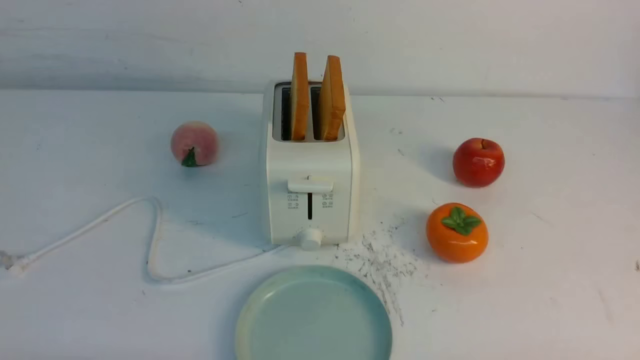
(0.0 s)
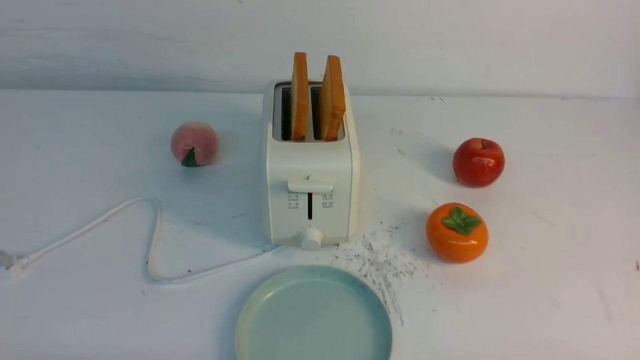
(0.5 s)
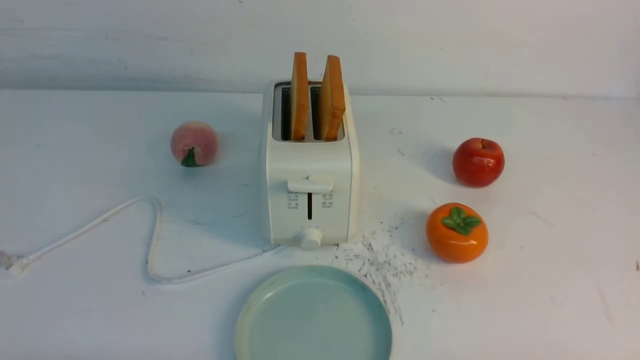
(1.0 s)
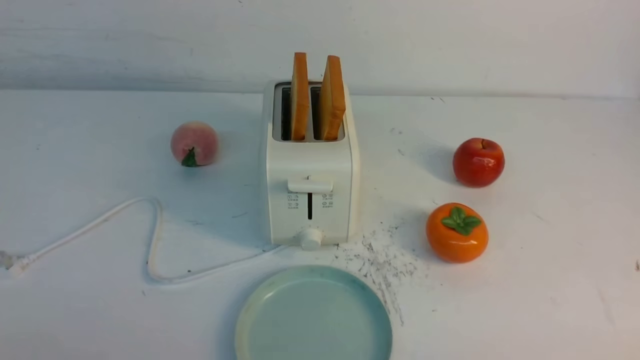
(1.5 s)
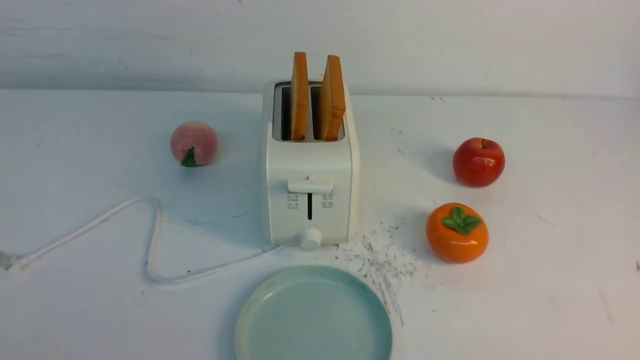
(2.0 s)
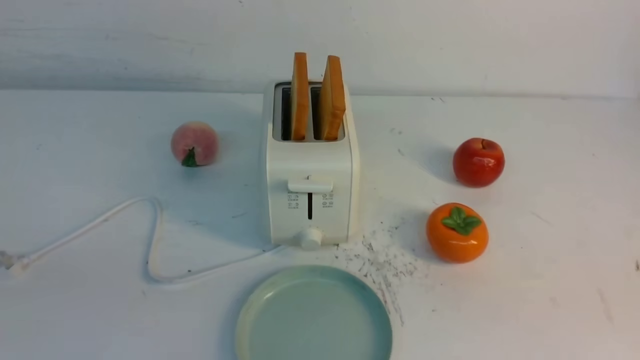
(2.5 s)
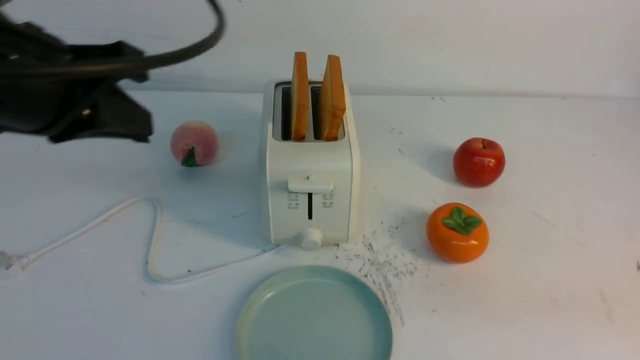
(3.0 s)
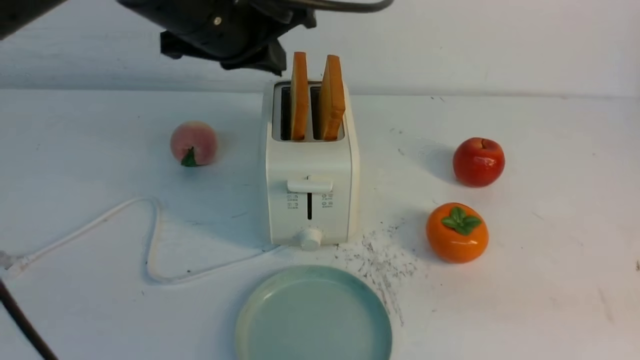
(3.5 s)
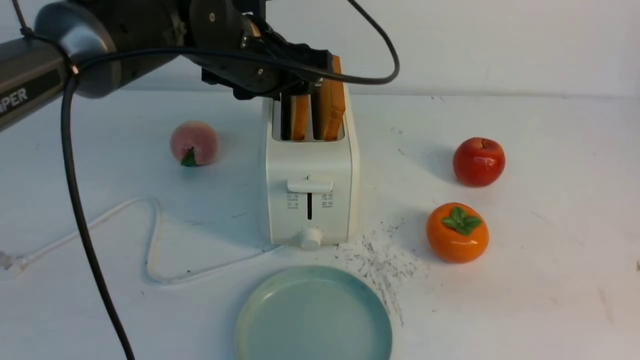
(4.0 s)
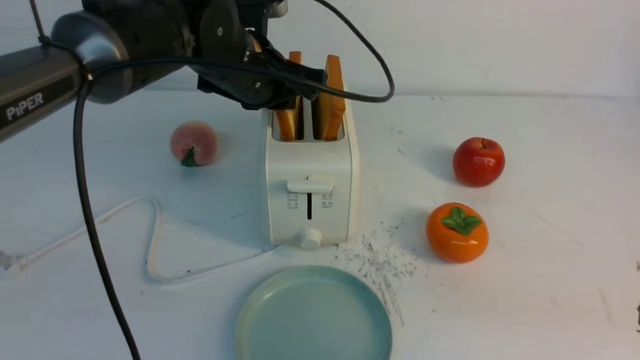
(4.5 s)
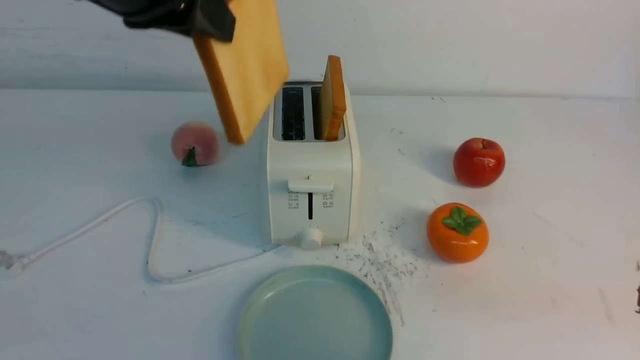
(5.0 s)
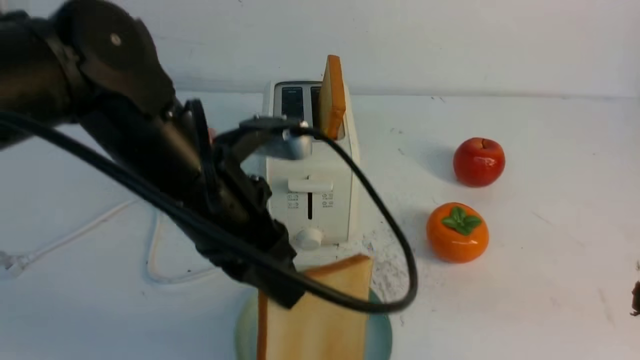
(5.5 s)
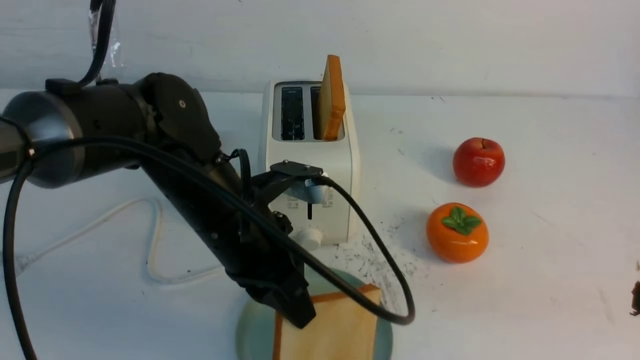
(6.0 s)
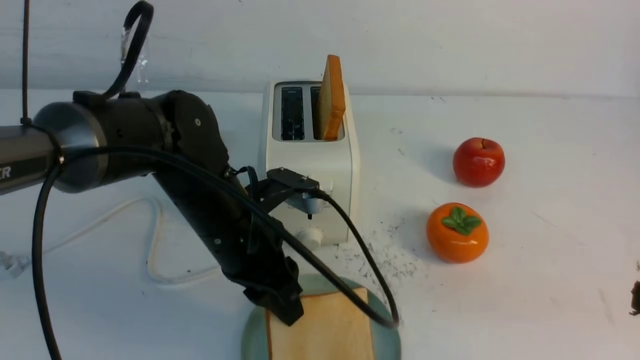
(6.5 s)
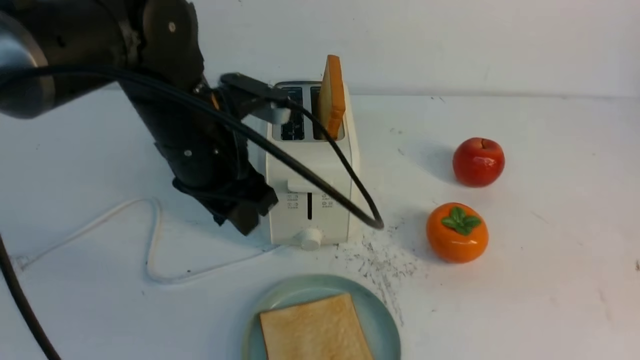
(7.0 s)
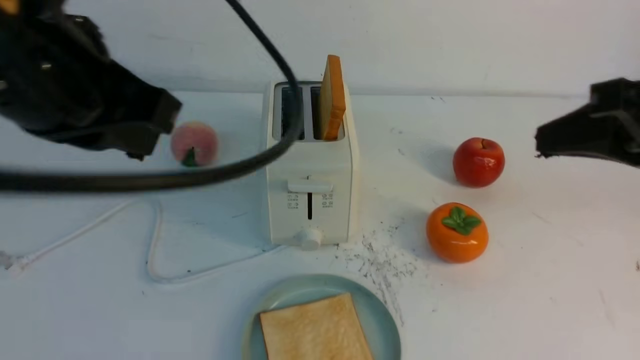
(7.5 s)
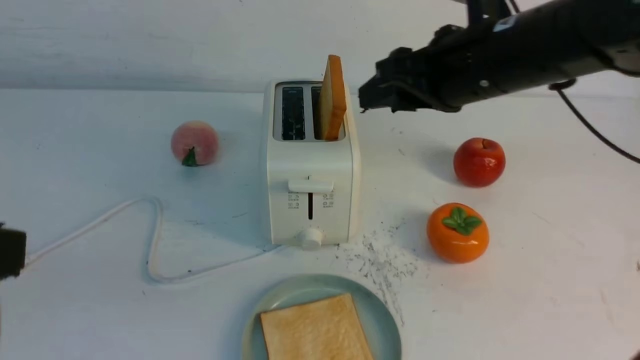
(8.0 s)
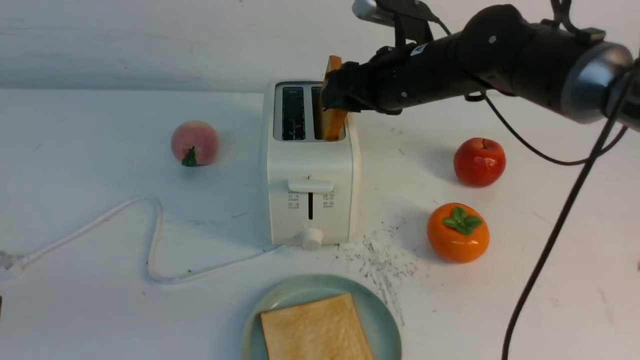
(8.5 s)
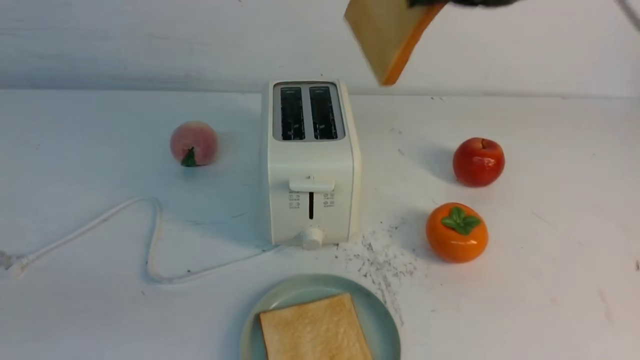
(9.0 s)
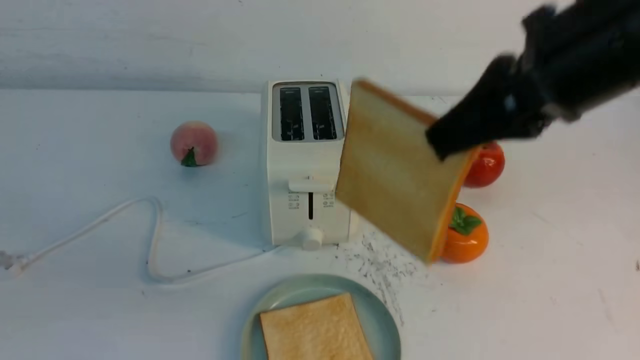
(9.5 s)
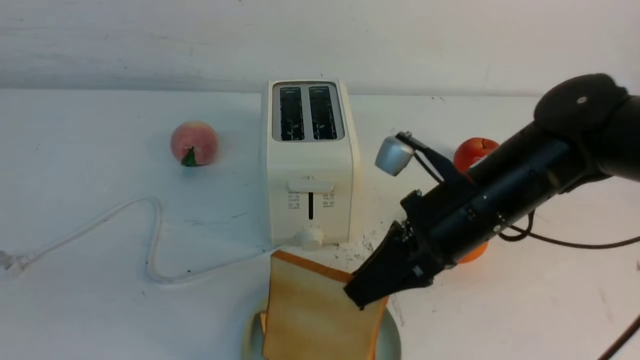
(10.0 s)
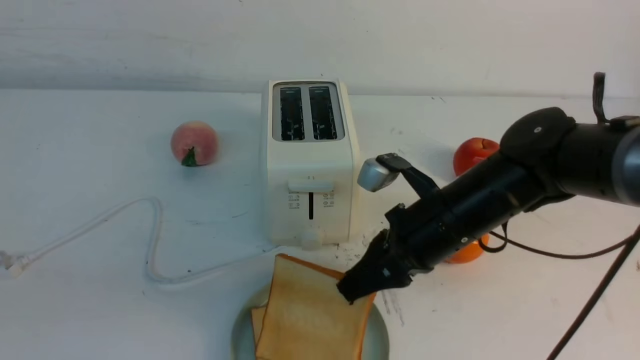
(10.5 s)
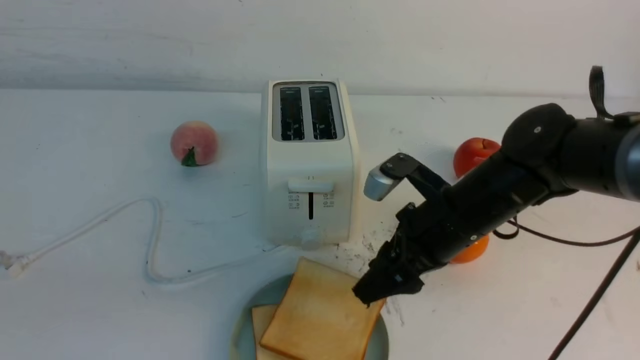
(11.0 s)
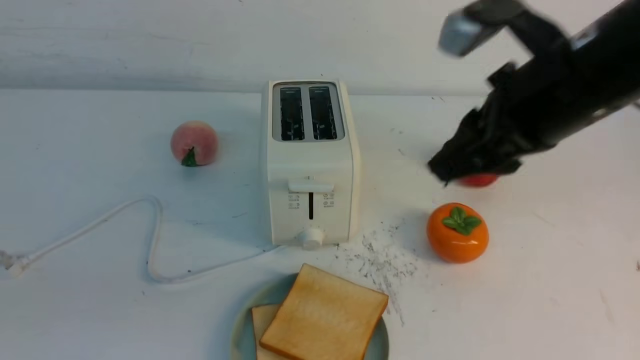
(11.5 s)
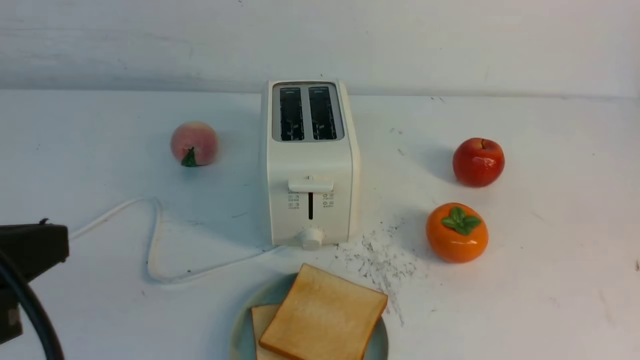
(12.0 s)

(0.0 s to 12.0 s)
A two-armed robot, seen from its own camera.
Task of the whole recording: take toasted bread from bread machine on white table place on plate.
Step, 0.0 s - 4.5 s: use the left arm to take out a slice of bread.
Step, 5.0 s - 7.0 s: use the left arm to put a slice of bread into the empty plate.
Step, 7.5 s - 8.5 s: use the right arm to take out a slice of bread.
Step, 9.0 s - 11.0 s: use the right arm to put a slice of bread into the plate.
2.0 s - 4.0 s: The right gripper moves upward and forward, about 10 cm, and closes, while the left gripper heads forward and to the right, covering roughly 40 cm, and opens up.
4.0 s - 6.0 s: The left gripper travels backward and downward by about 15 cm, and closes up.
6.0 s - 8.0 s: The left gripper is displaced backward, upward and to the left by about 30 cm, and opens, then closes once more, while the right gripper moves forward and to the left, about 30 cm, and opens.
8.0 s - 10.0 s: The right gripper goes up and down, about 20 cm each way, reversing 2 times, and closes.
10.0 s - 12.0 s: The right gripper shifts roughly 30 cm backward, upward and to the right, and opens and closes again.

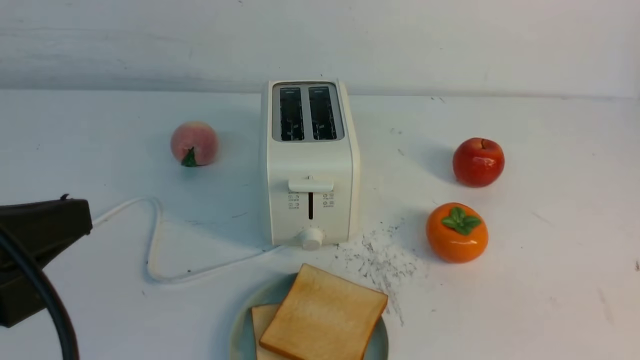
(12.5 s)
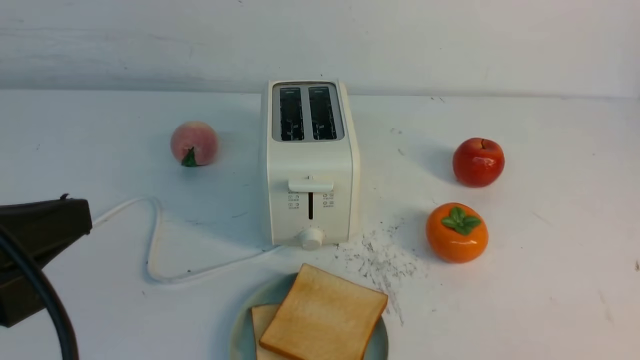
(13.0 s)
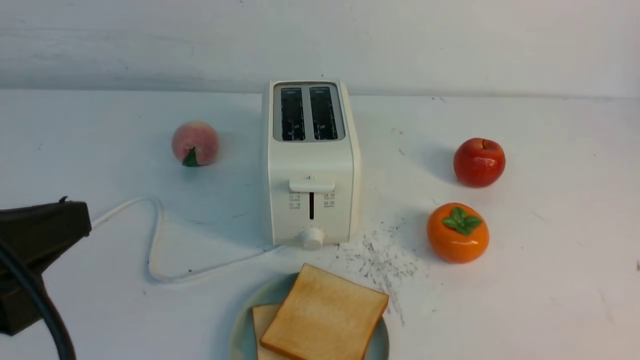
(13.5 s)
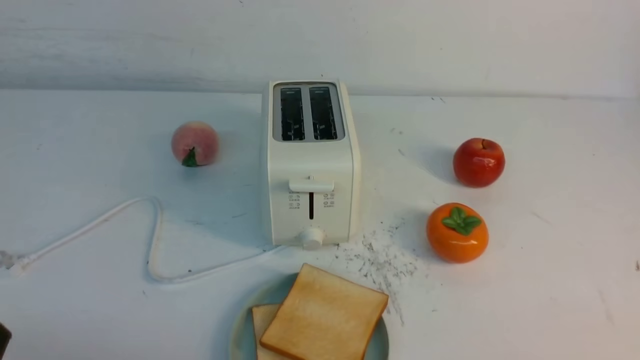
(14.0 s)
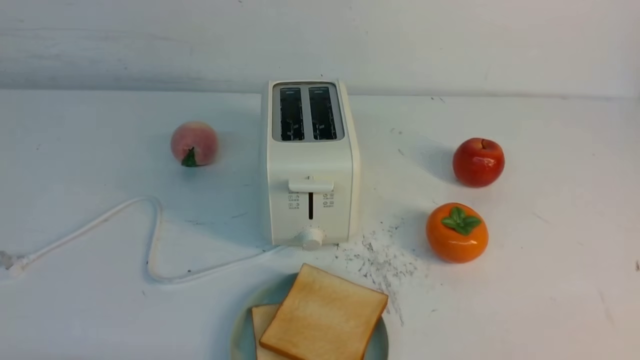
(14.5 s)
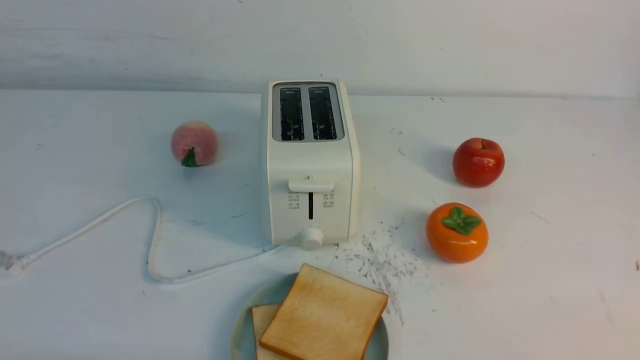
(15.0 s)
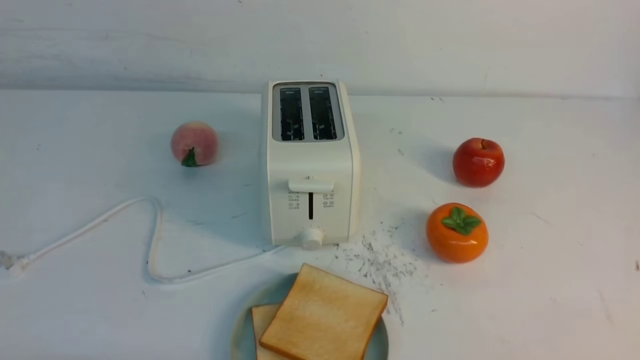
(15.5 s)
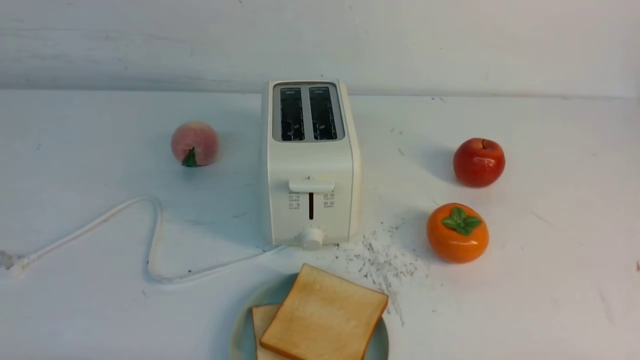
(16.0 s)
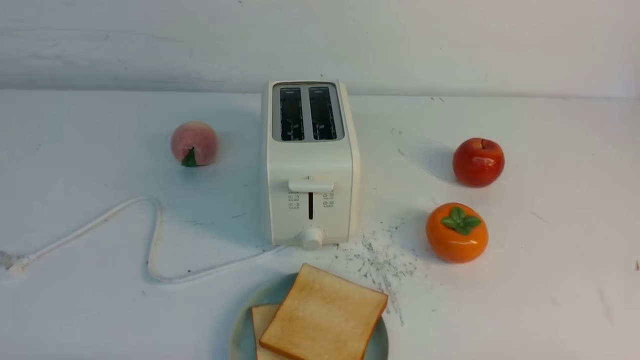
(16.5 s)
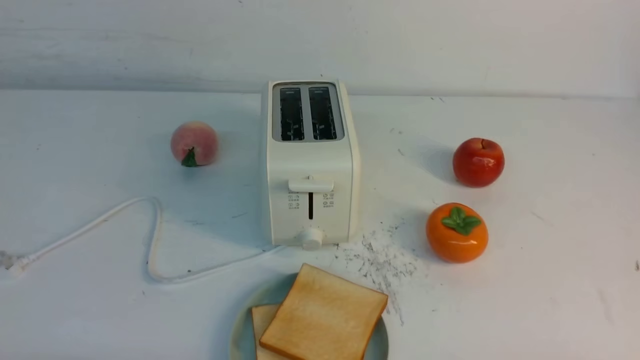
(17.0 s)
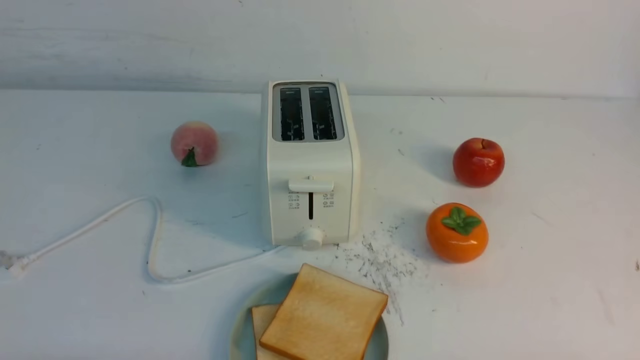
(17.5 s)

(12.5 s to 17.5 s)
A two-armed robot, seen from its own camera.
Task of the whole recording: take toasted bread from bread machine on white table place on plate.
12.5 s - 15.0 s: The left gripper heads downward, covering approximately 20 cm.

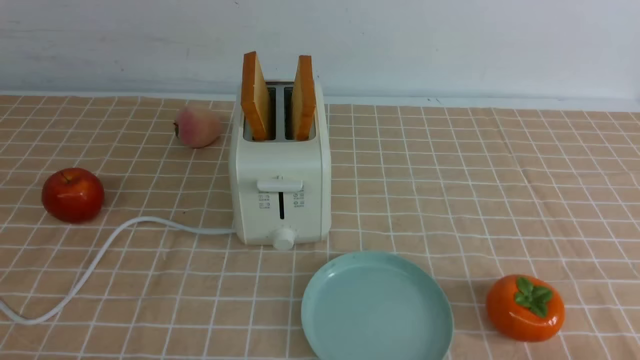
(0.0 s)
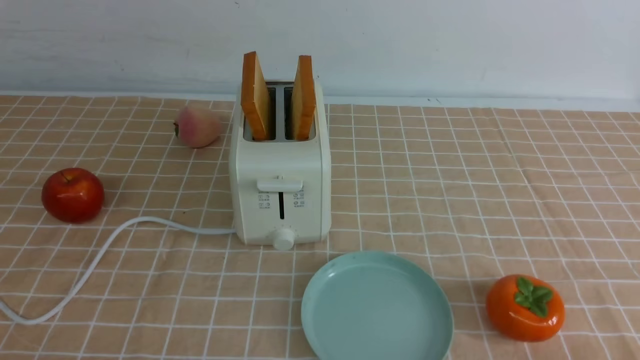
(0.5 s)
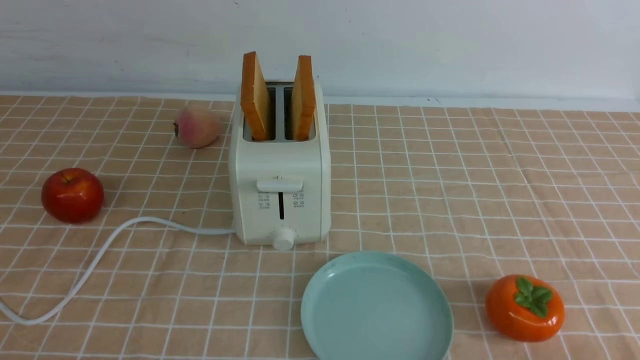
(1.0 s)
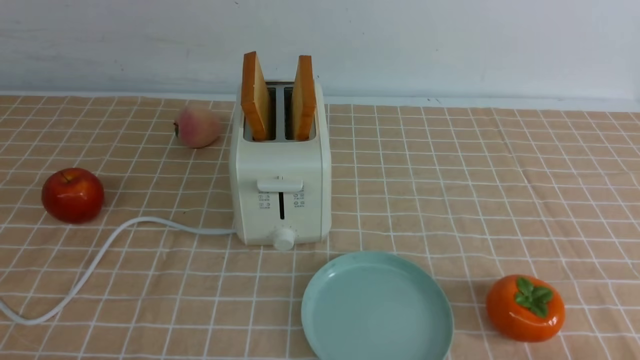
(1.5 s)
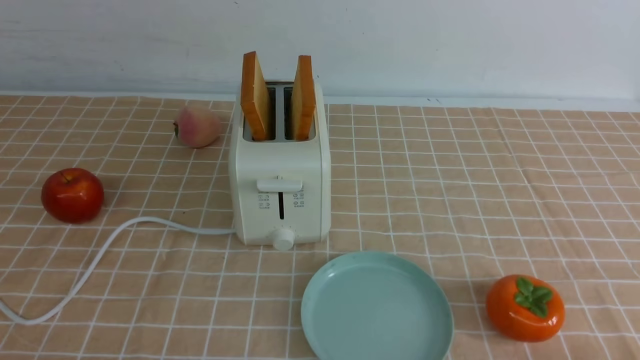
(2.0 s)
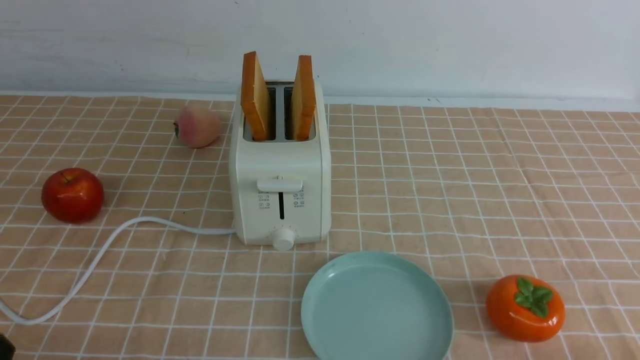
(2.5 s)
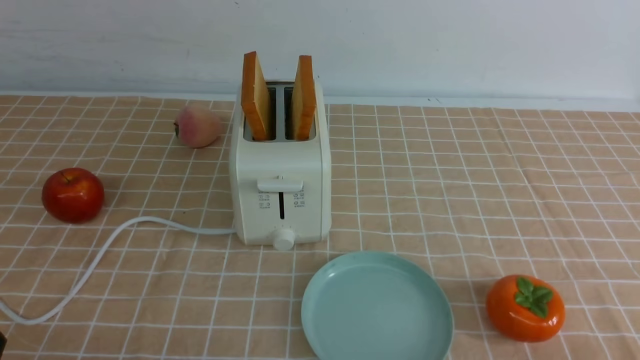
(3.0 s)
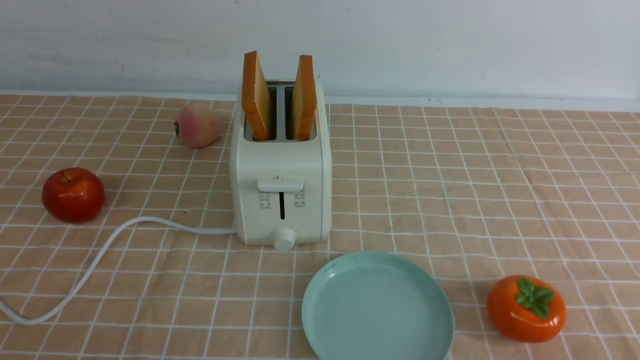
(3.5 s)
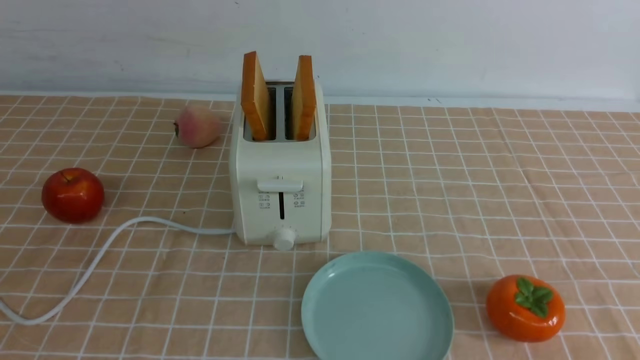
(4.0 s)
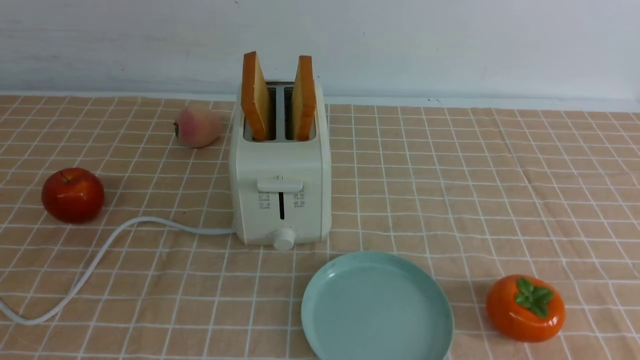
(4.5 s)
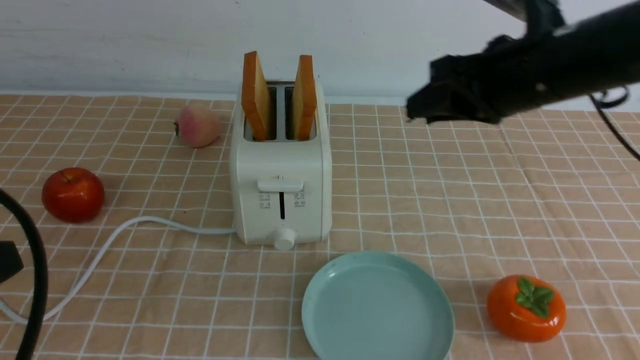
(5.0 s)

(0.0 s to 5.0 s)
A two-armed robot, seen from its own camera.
Task of the whole recording: take toasted bread from bread machine on light coffee tablecloth place on plate.
2.5 s - 5.0 s: The left gripper is displaced upward by approximately 15 cm; the right gripper travels forward, upward and to the left by roughly 40 cm.
